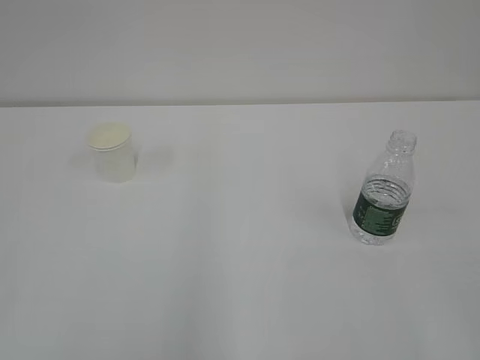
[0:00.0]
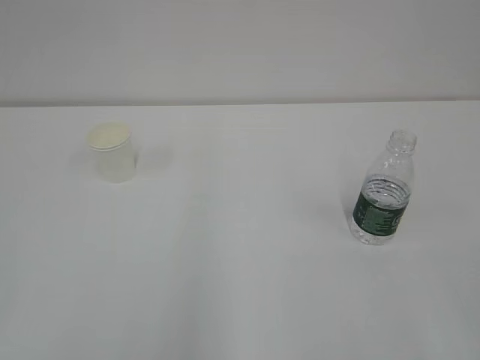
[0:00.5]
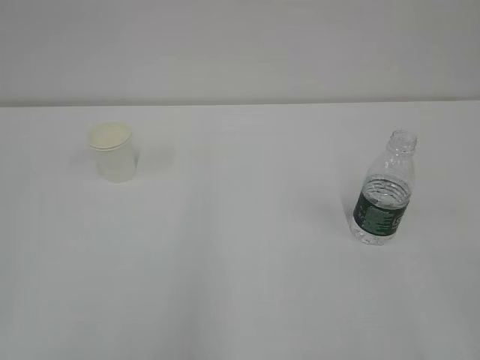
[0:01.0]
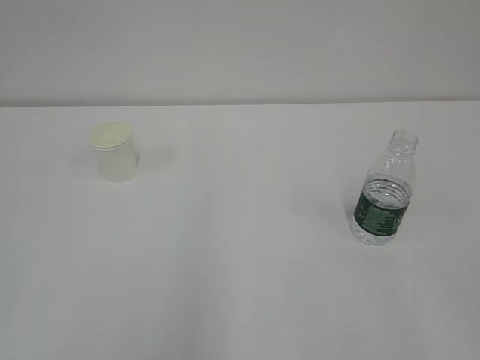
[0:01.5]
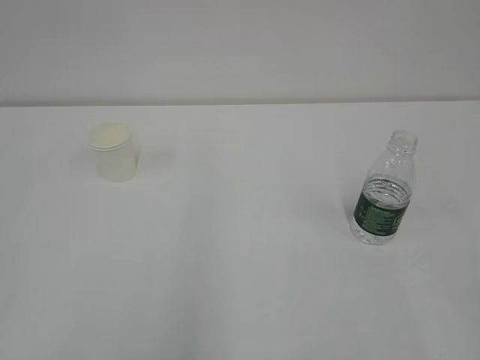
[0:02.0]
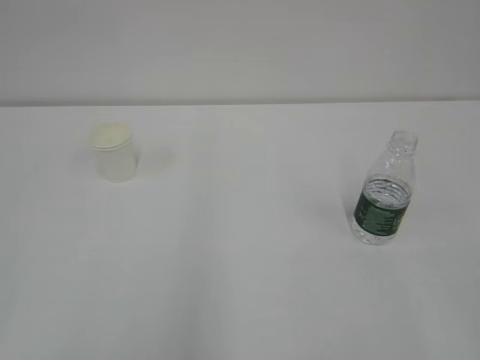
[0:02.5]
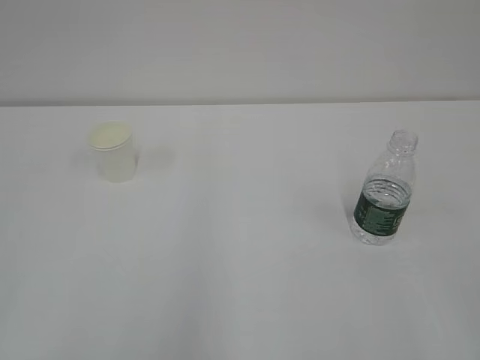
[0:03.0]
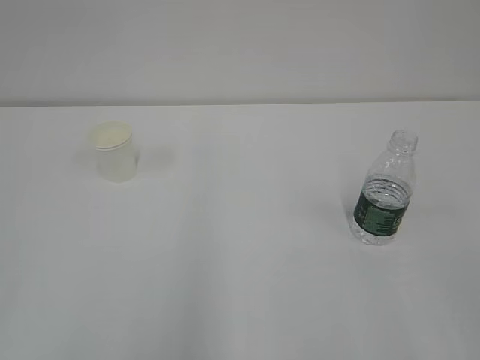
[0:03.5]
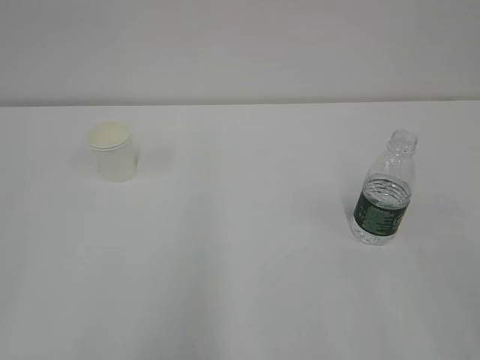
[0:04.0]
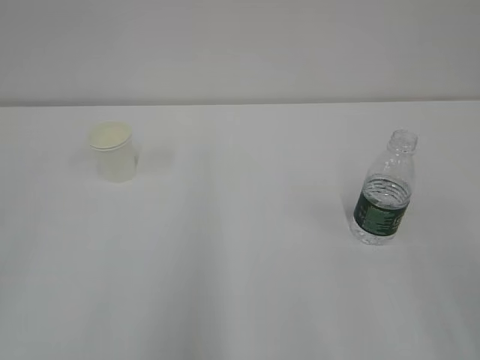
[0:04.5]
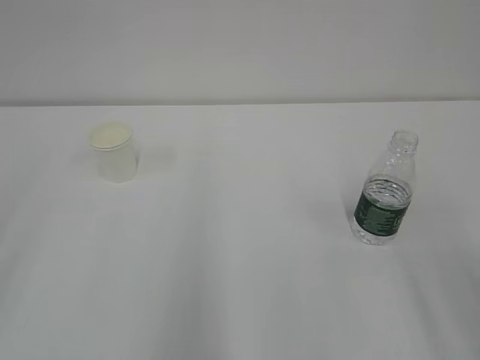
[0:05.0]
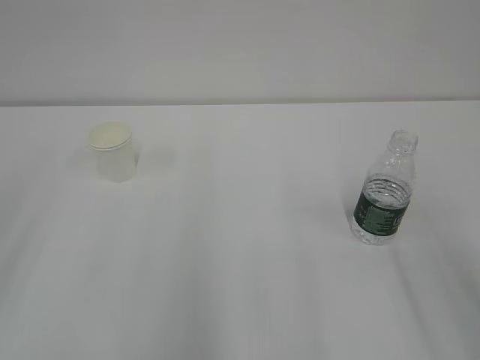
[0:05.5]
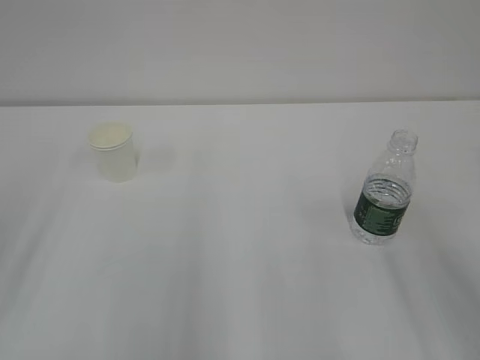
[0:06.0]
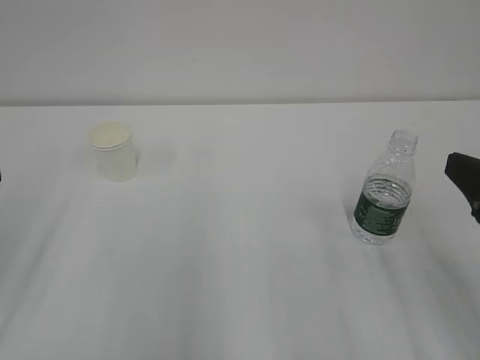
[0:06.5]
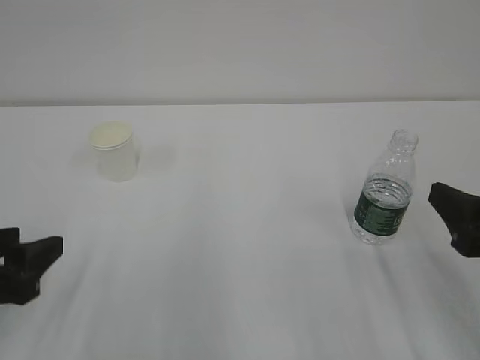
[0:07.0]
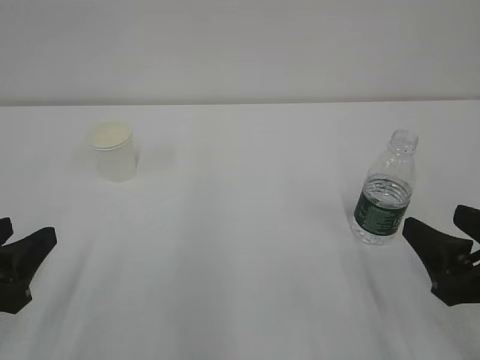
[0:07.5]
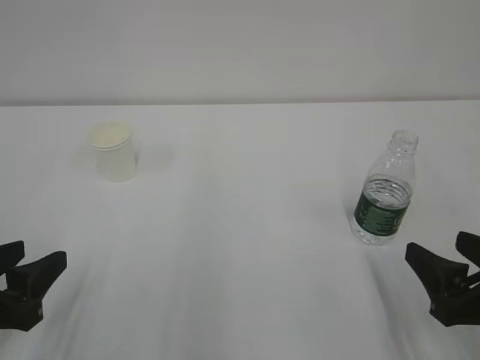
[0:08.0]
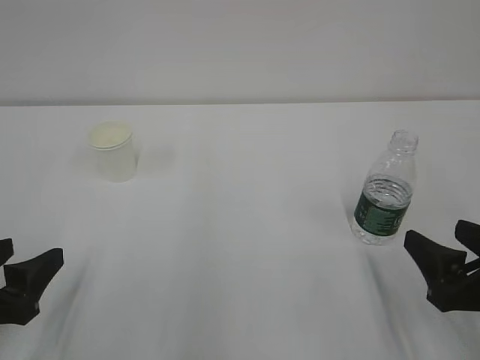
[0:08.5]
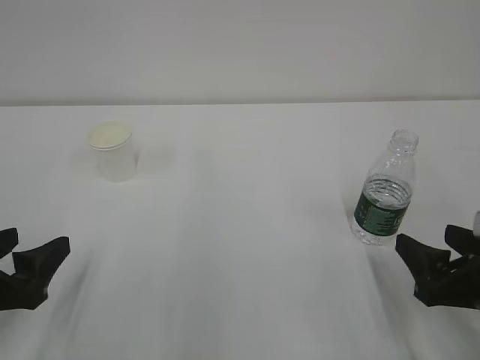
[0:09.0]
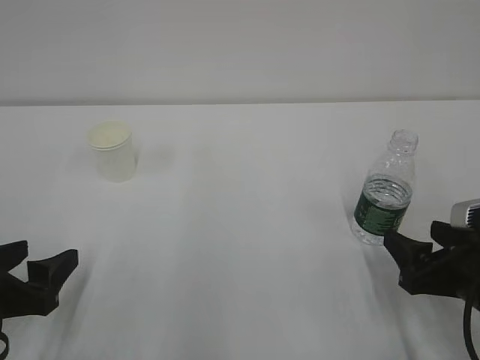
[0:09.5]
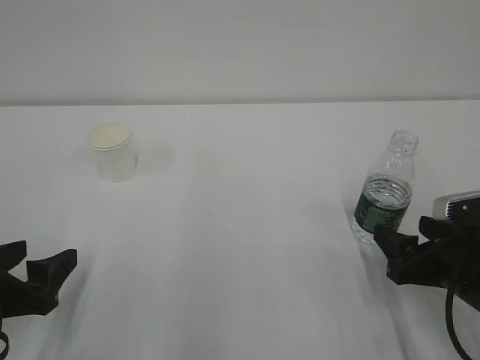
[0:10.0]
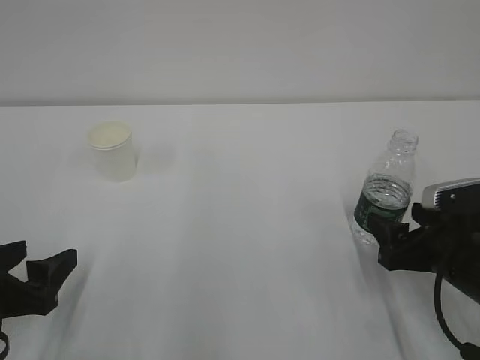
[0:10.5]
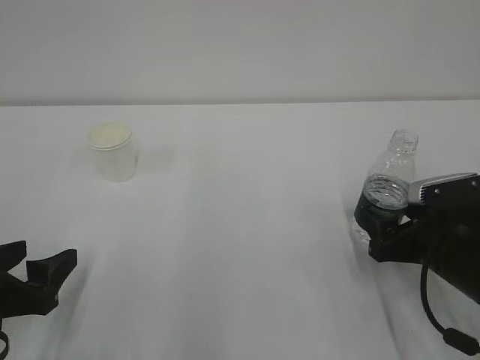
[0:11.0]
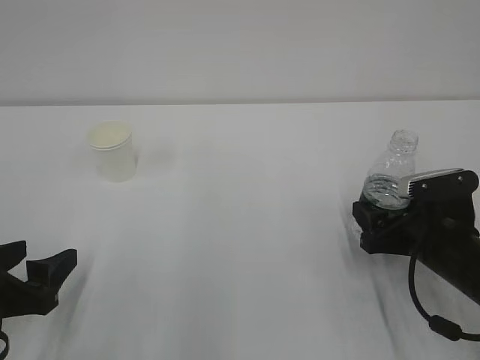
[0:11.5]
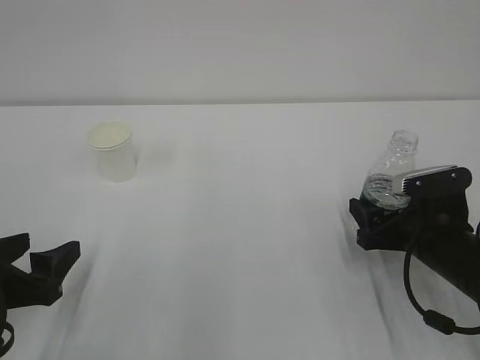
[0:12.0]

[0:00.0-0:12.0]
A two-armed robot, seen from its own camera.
0:06.0 to 0:08.0: Both grippers travel together downward, roughly 15 cm.
0:08.0 to 0:10.0: The right gripper travels forward by about 5 cm. Meanwhile the left gripper opens up.
0:10.0 to 0:12.0: The right gripper travels forward by about 5 cm.

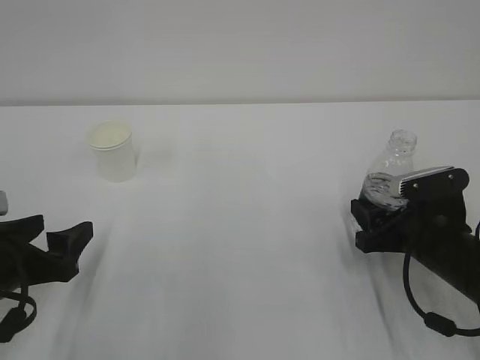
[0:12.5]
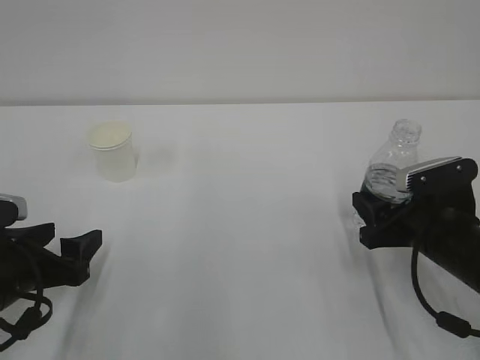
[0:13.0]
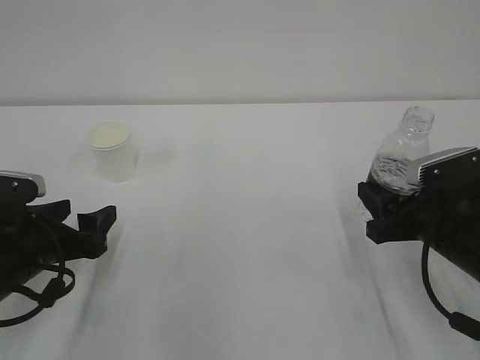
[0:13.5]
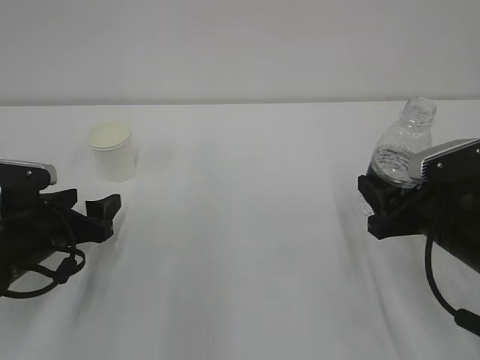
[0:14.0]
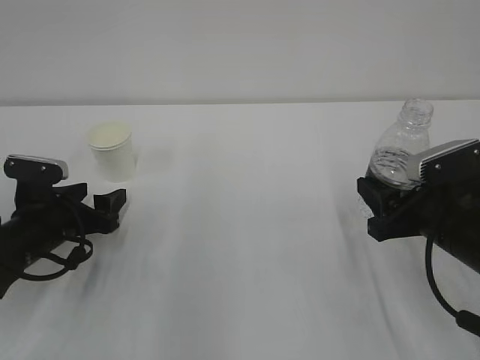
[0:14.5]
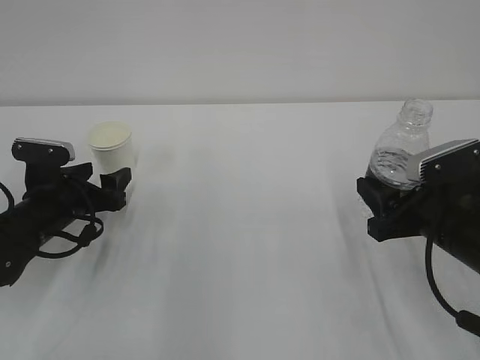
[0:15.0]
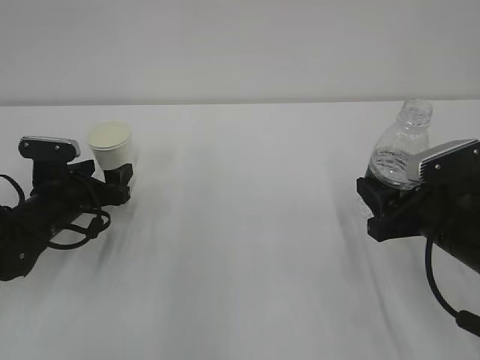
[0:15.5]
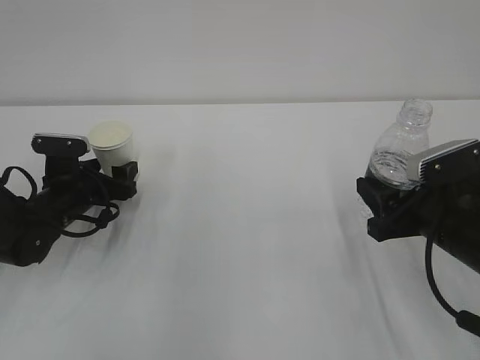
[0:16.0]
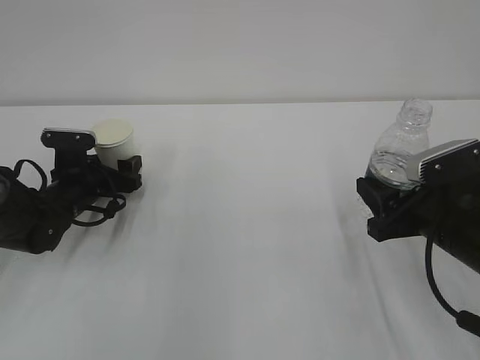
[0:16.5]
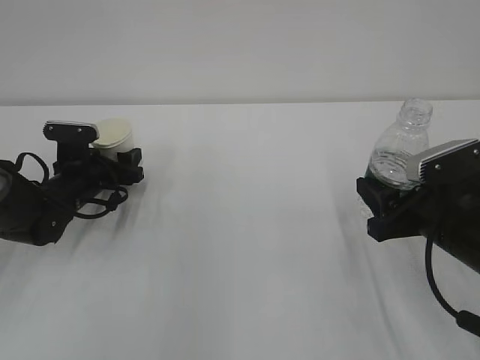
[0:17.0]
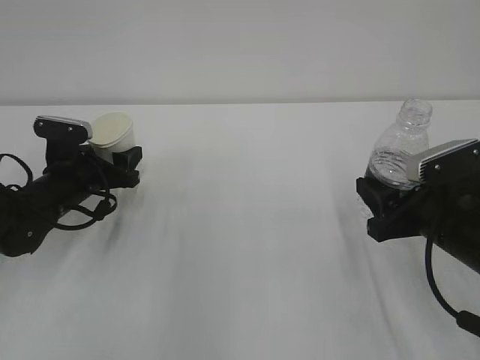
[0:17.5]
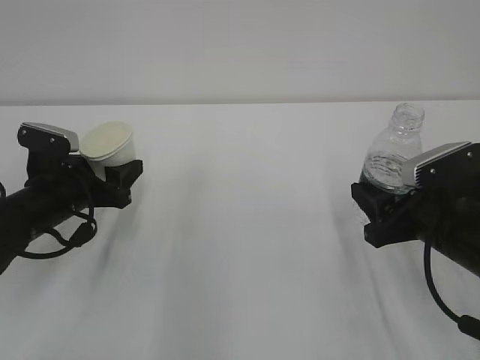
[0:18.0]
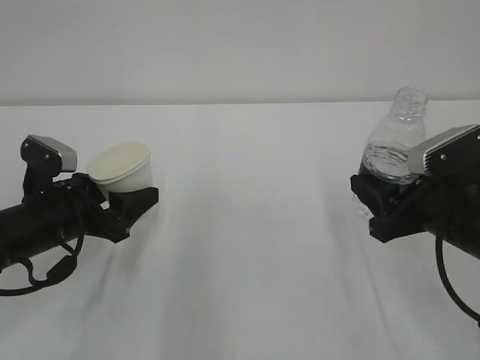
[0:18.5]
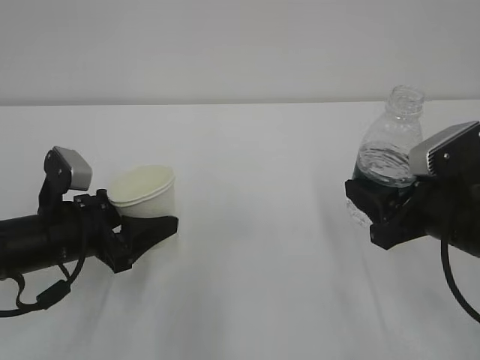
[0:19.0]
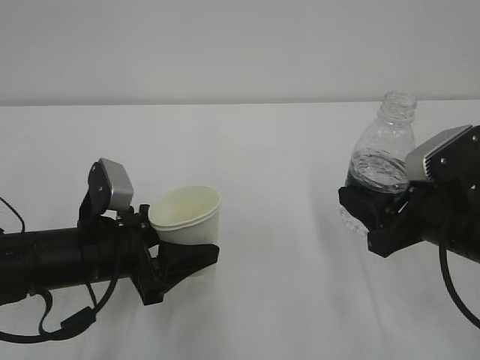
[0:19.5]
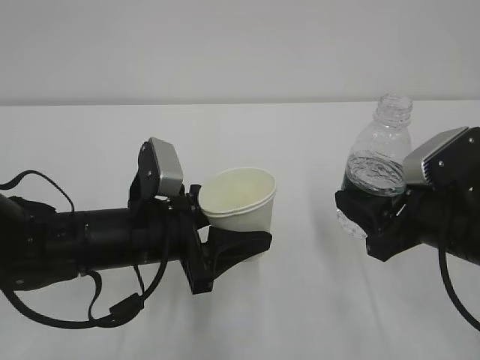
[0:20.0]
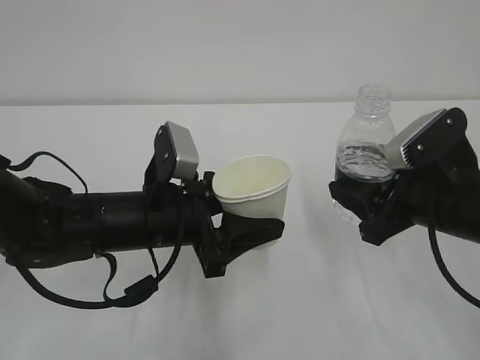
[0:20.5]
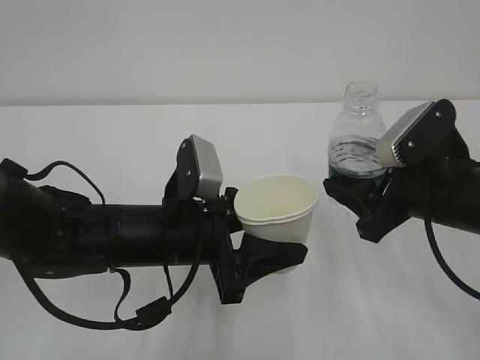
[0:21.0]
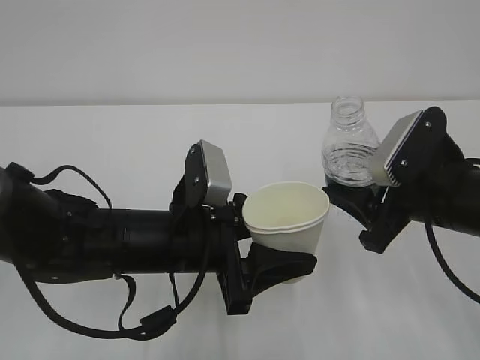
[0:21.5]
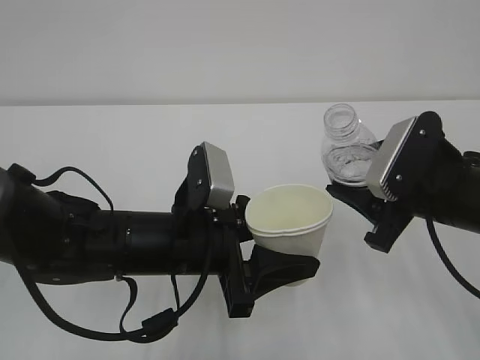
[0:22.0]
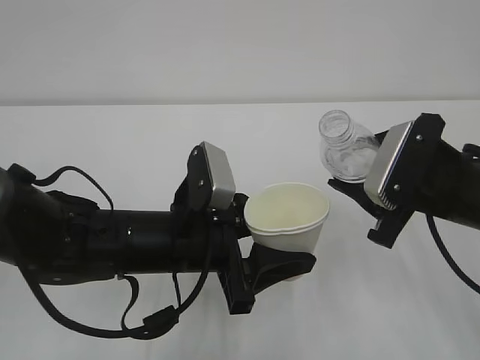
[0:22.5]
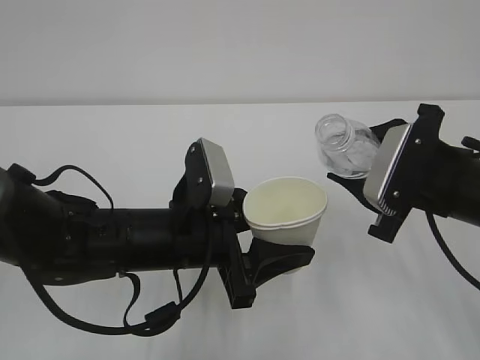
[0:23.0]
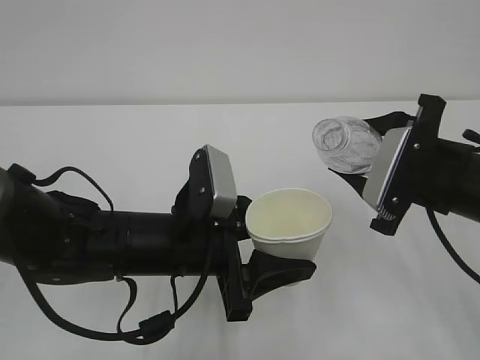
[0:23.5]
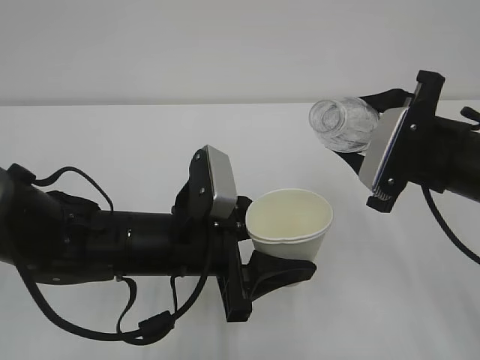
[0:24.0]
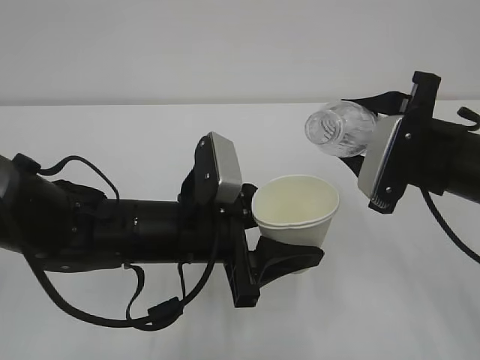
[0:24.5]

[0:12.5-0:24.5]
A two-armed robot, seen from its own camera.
0:12.5 to 0:14.5: The right gripper travels upward by some 5 cm. Meanwhile the left gripper is displaced forward by approximately 10 cm.
0:14.5 to 0:16.5: The left gripper is displaced forward by approximately 10 cm.
0:16.5 to 0:18.5: The left gripper goes some 15 cm backward and upward, and closes up.
0:18.5 to 0:20.5: The left gripper heads to the right, covering some 15 cm.

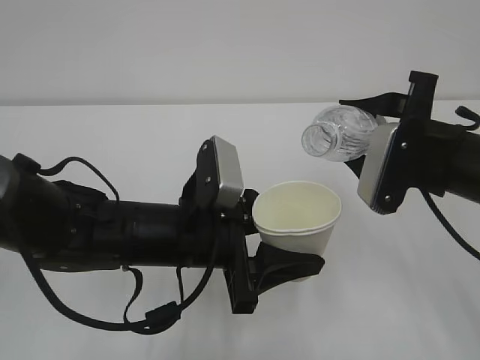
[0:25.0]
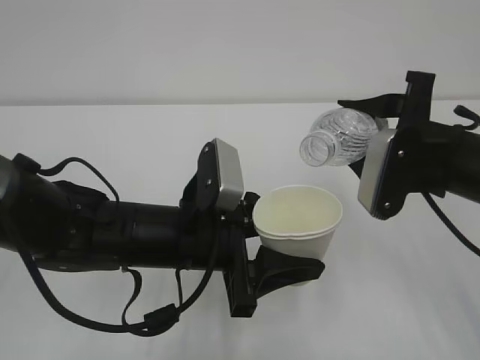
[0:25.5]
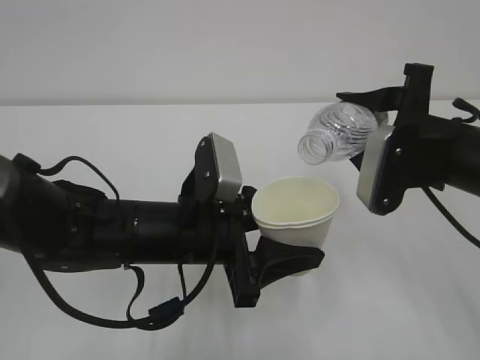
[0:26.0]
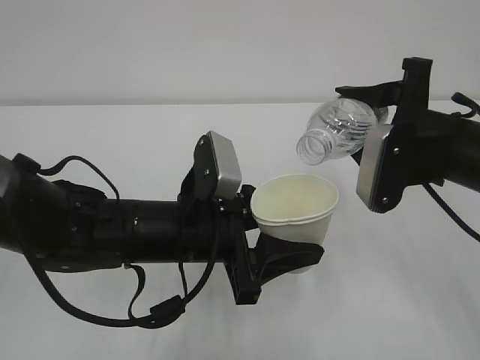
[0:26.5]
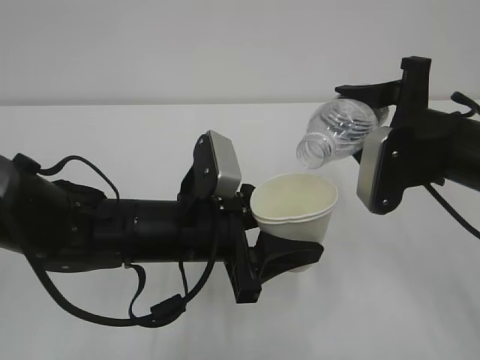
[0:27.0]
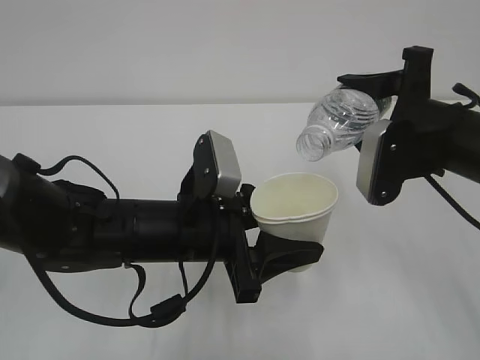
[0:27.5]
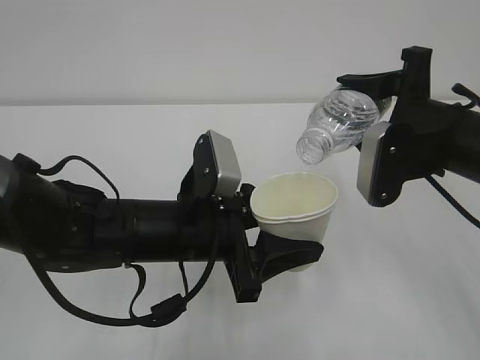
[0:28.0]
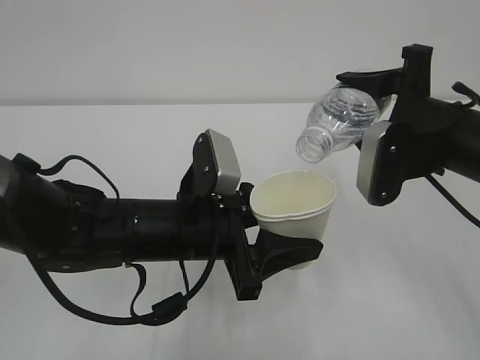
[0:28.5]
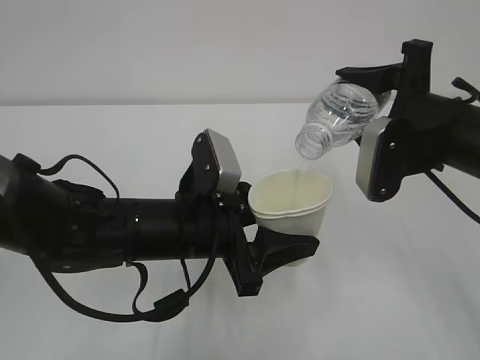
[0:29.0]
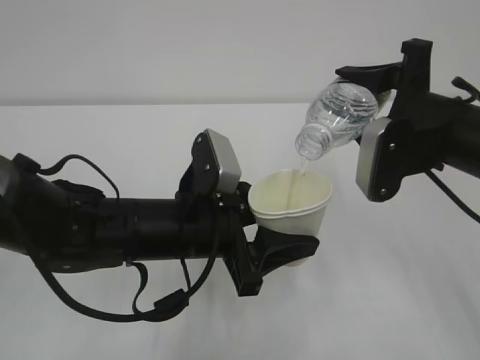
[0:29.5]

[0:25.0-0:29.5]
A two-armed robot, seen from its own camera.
0:25.0 to 0:27.0: There are only small adjustments of the grippers.
0:27.0 to 0:29.5: The grippers make only small movements.
